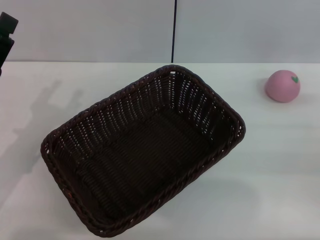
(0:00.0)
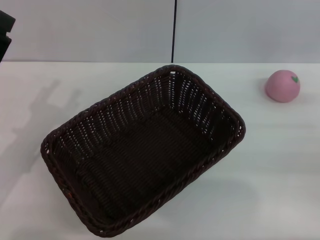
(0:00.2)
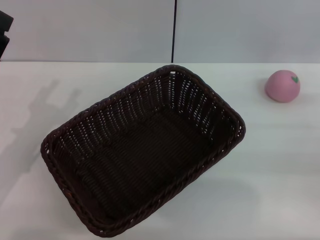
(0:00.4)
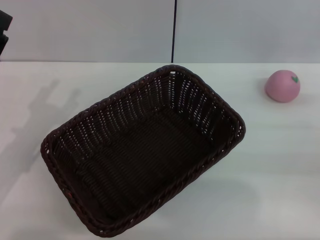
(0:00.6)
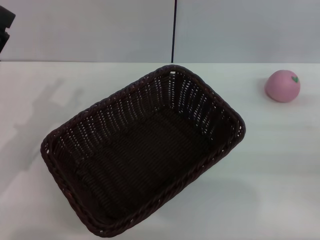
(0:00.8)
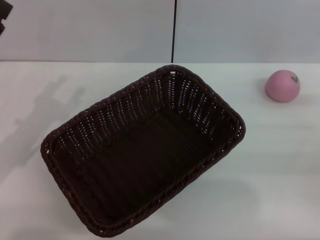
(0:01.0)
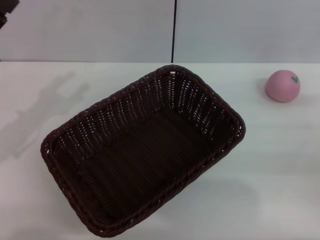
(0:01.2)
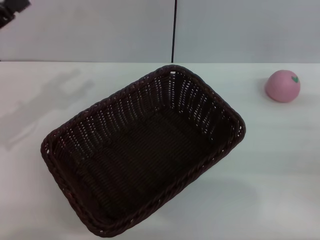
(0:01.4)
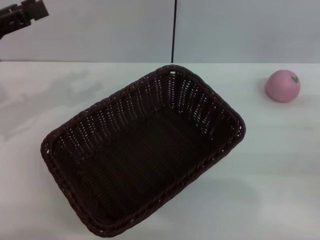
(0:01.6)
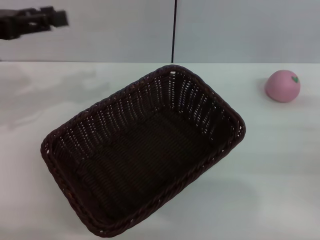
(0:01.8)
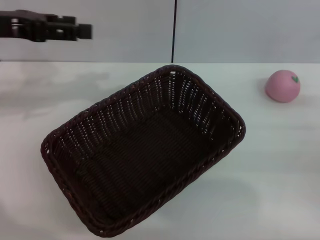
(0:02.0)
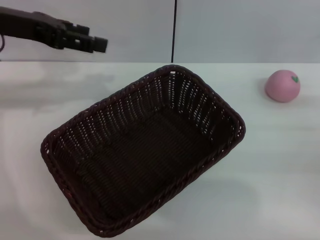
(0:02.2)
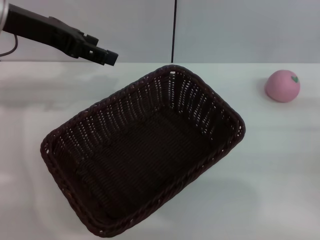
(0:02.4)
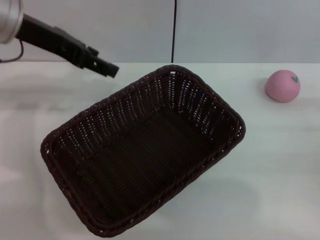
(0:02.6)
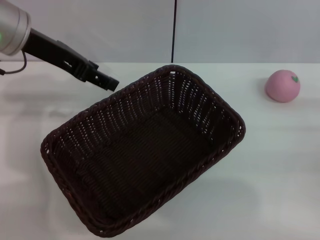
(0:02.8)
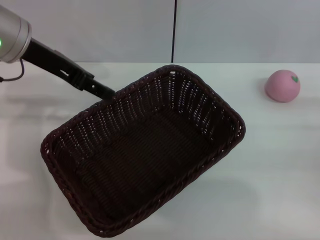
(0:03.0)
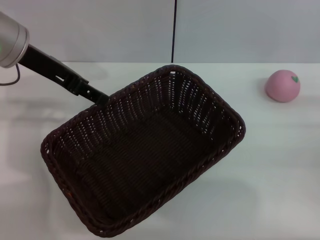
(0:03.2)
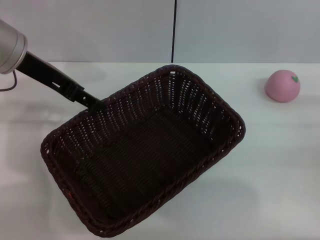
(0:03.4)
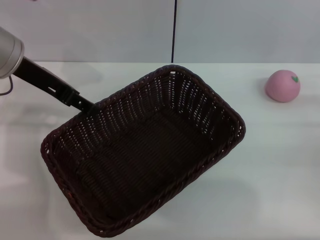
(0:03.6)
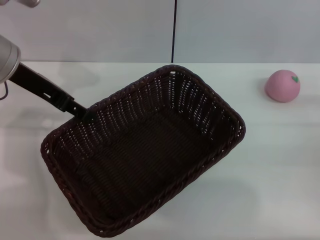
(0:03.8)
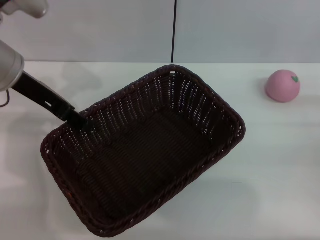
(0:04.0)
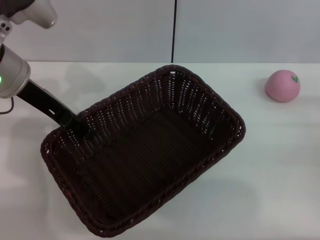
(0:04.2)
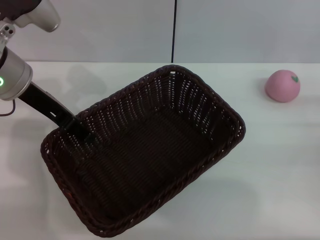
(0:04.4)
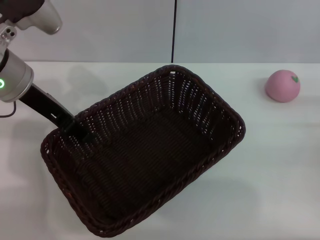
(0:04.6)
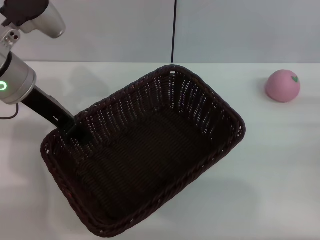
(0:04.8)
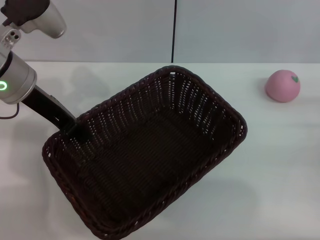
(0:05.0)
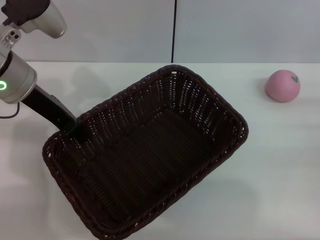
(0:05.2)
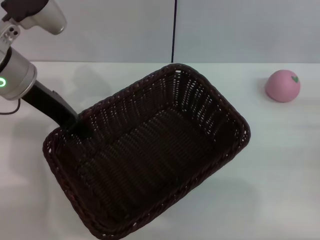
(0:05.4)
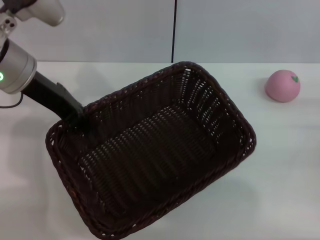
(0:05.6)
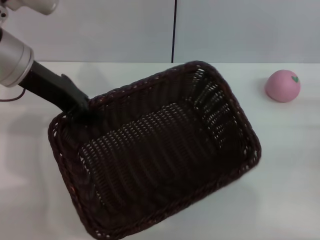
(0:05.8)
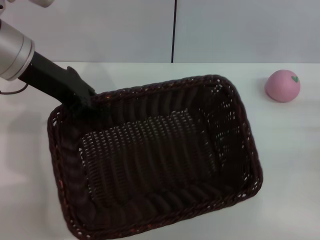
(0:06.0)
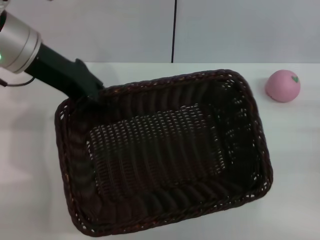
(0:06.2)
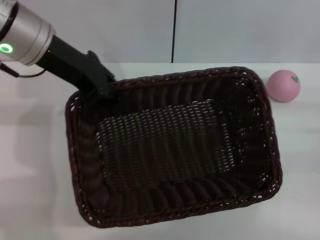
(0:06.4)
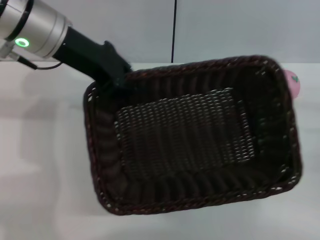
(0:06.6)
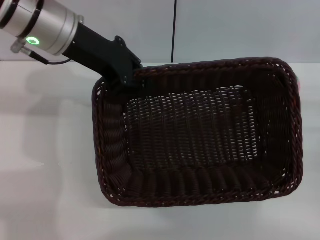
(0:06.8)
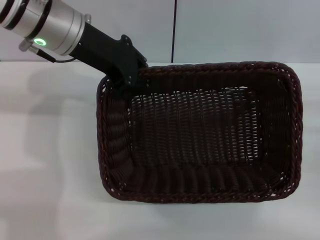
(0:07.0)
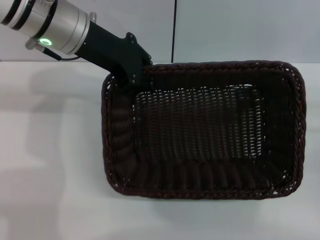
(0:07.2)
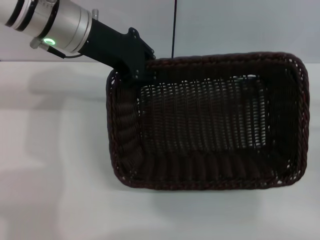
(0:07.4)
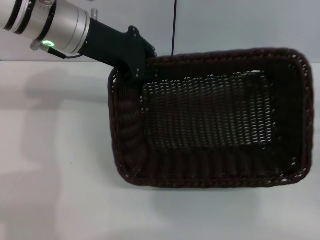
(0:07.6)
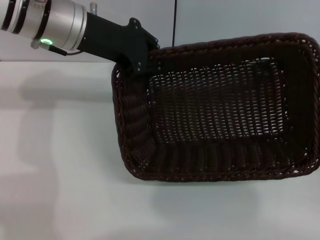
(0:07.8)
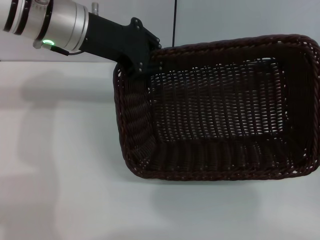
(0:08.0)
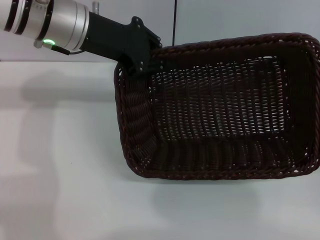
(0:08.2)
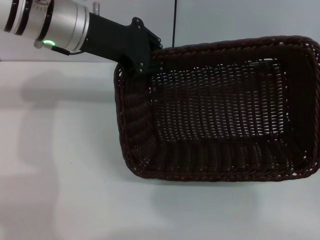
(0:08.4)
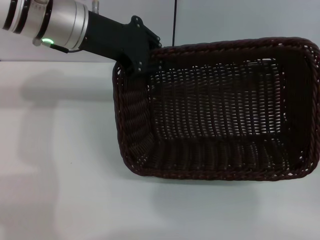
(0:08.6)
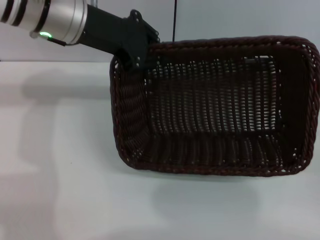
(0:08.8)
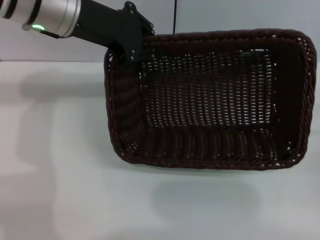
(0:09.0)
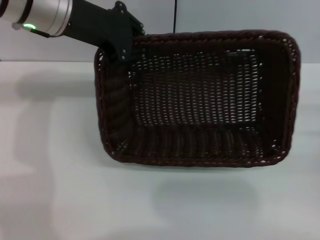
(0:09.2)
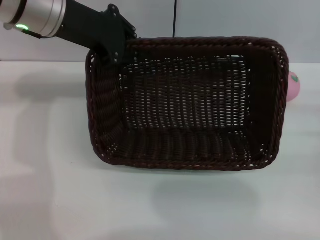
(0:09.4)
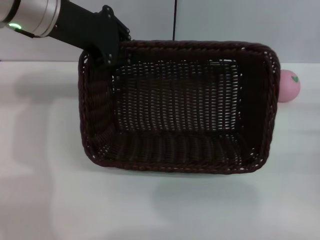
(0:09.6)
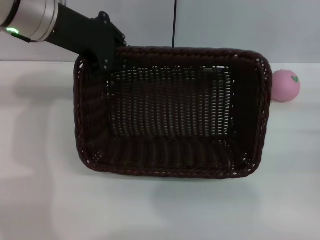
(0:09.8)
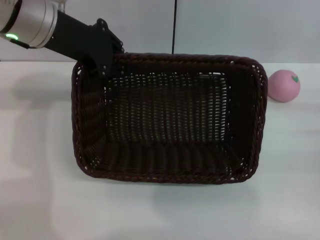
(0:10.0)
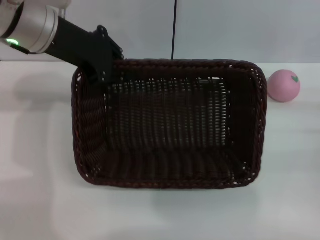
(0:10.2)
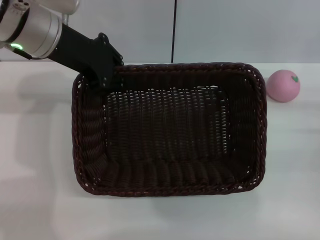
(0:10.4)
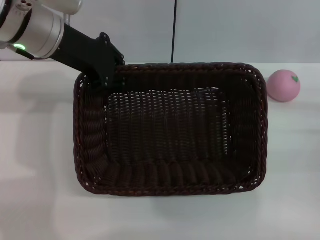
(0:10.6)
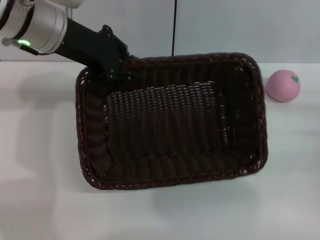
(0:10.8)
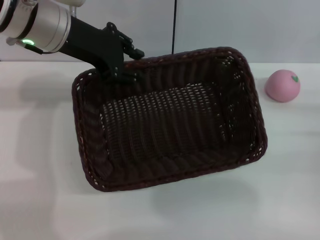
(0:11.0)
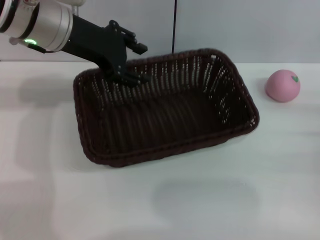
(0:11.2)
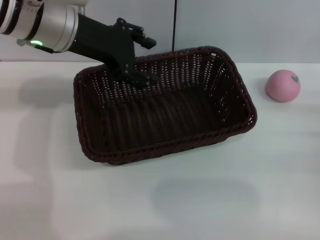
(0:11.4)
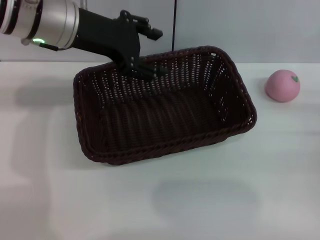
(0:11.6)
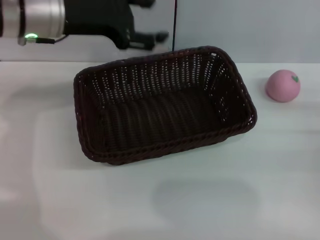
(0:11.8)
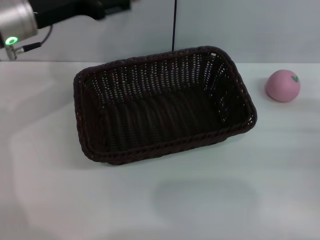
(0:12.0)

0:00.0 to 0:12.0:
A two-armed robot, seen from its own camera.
Step, 0:00.0 to 0:05.4: Pick up the dark basket with the left gripper.
Step, 0:05.8 to 0:11.6: Place the dark basket in the center of view with the right gripper.
0:00.0 to 0:01.6: The left gripper travels upward, forward and to the left by roughly 15 cm.
0:01.6 to 0:03.0: The left gripper moves to the right and forward, approximately 15 cm.
0:03.0 to 0:04.4: The grippers stay close to where they were, moving slightly.
0:04.4 to 0:06.0: The left gripper closes.
0:06.0 to 0:07.6: The left gripper travels to the right by approximately 5 cm.
0:10.4 to 0:12.0: The left gripper ends up some 5 cm from where it was, and opens.

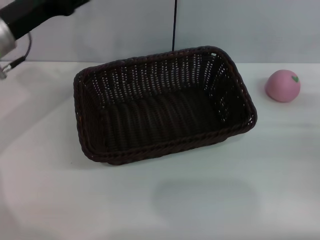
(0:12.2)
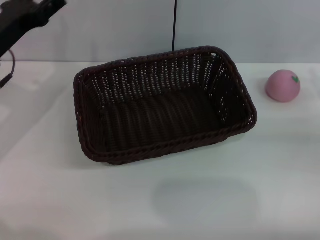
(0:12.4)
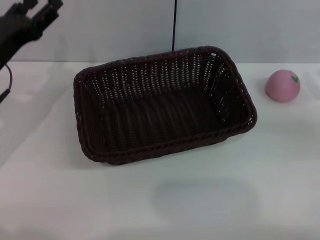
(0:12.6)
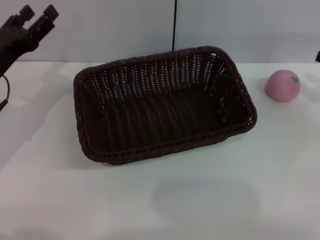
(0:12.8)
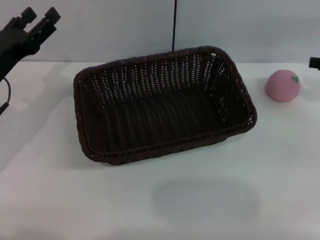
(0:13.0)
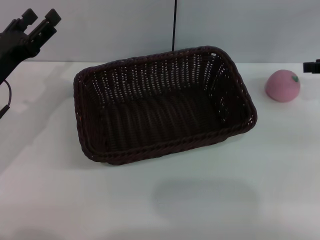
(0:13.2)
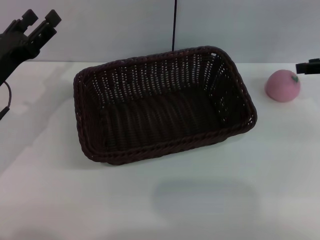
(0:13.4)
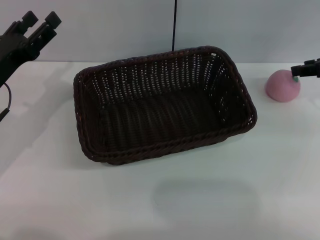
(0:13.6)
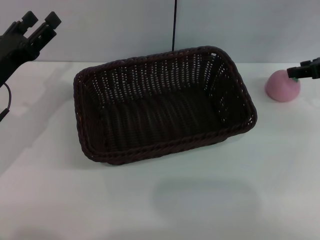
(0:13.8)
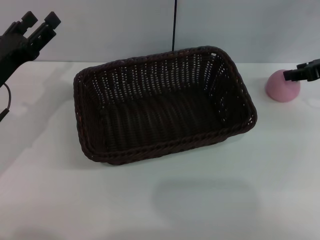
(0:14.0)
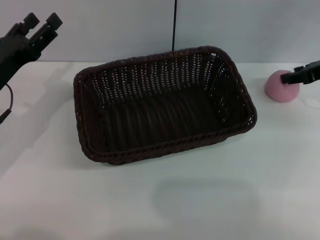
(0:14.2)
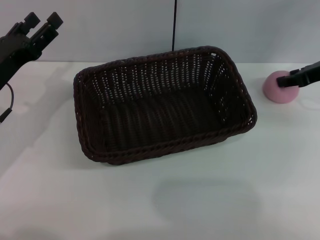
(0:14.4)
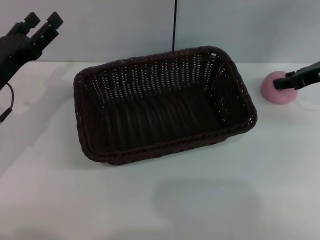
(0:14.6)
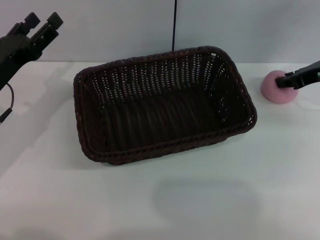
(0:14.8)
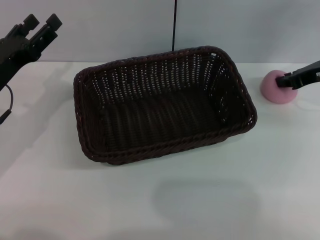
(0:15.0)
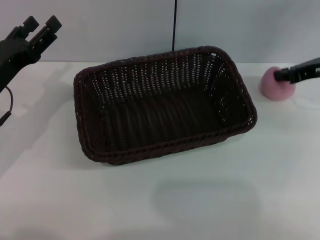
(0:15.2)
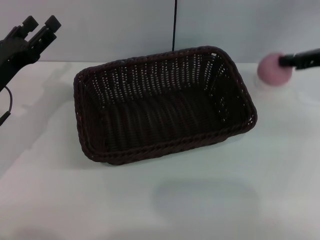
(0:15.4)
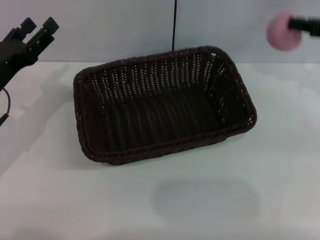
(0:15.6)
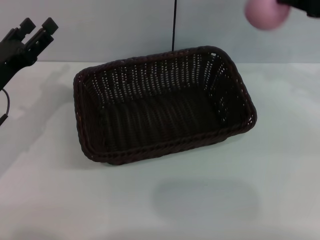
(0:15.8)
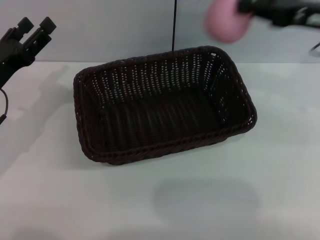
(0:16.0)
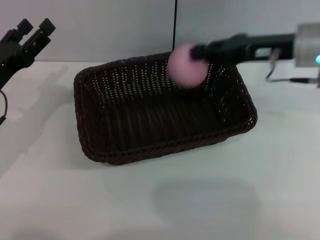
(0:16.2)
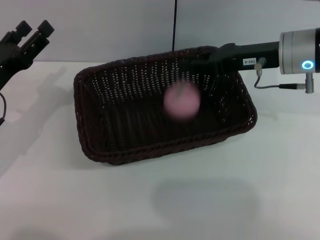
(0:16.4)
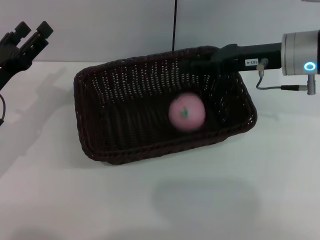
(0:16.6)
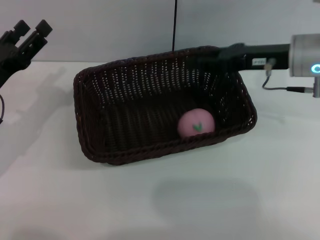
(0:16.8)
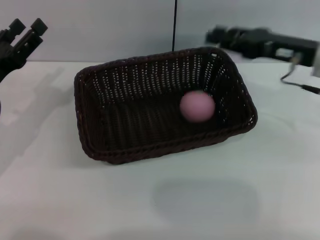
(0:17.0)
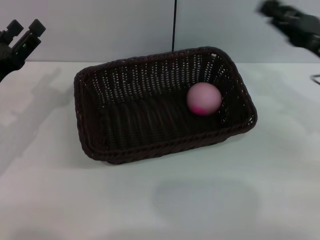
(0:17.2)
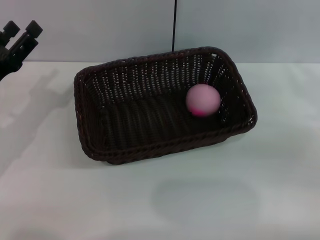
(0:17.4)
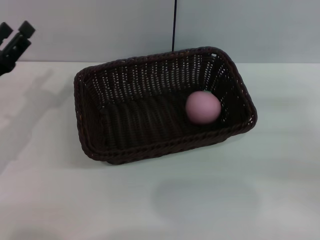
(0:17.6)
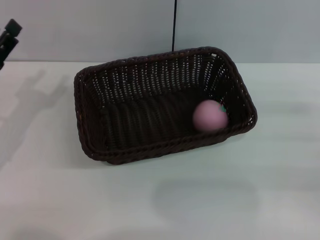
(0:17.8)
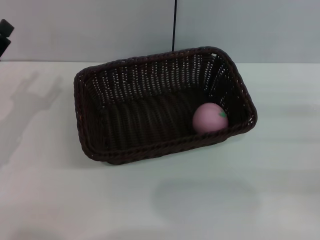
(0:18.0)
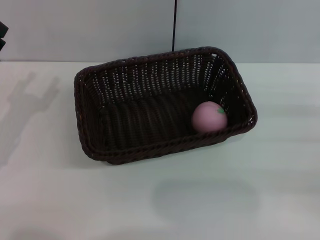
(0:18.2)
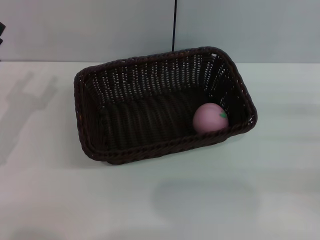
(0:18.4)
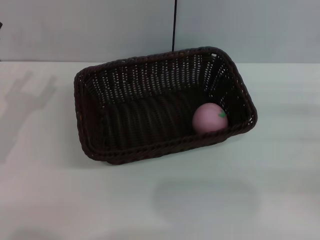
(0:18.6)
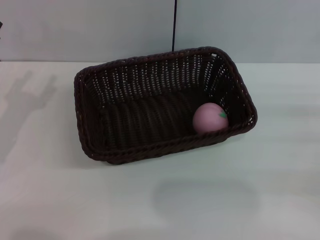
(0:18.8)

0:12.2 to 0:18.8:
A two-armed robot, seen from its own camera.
Step, 0:12.2 to 0:15.4: Pick up the peach with the left gripper.
0:12.2 to 0:13.8: The left gripper heads downward and backward, covering approximately 10 cm, while the right gripper travels forward and upward by approximately 15 cm.
0:13.8 to 0:15.4: The right gripper closes up.
0:15.4 to 0:17.2: The right gripper is displaced backward by roughly 5 cm, moves about 10 cm to the left and comes back, and opens up.
0:17.2 to 0:18.8: The right gripper moves to the right and backward, some 15 cm.
